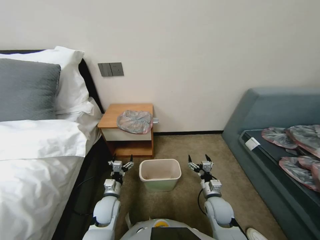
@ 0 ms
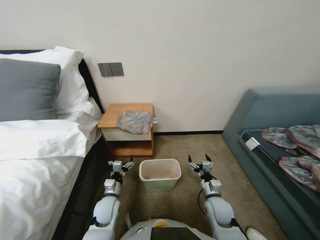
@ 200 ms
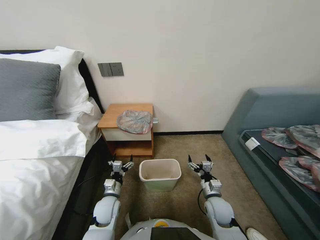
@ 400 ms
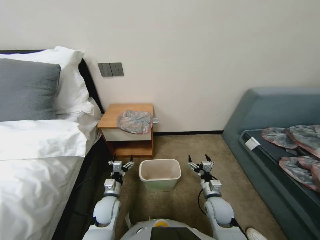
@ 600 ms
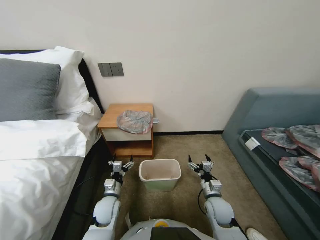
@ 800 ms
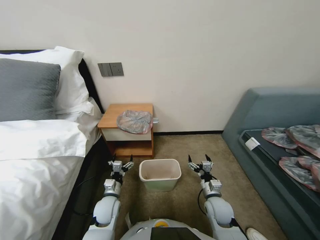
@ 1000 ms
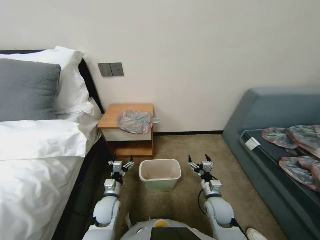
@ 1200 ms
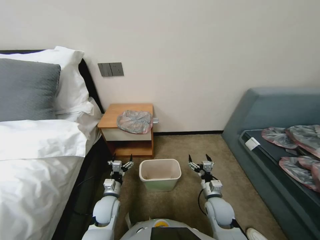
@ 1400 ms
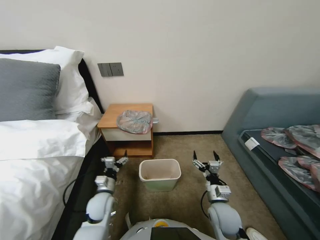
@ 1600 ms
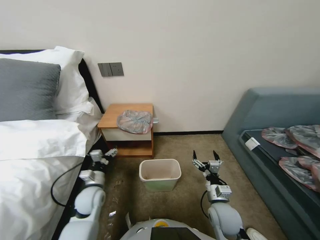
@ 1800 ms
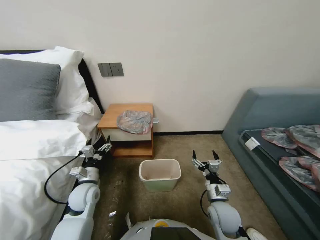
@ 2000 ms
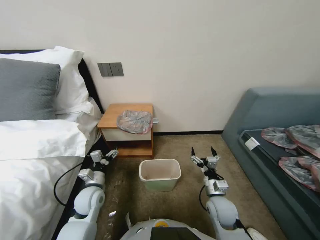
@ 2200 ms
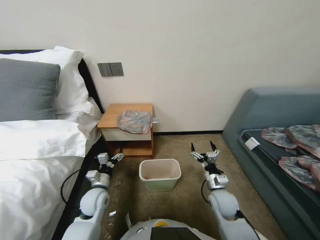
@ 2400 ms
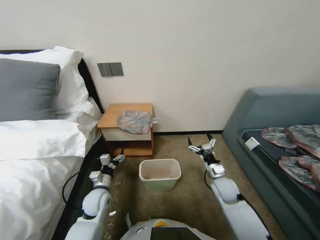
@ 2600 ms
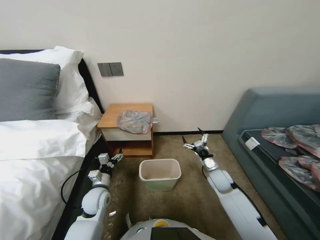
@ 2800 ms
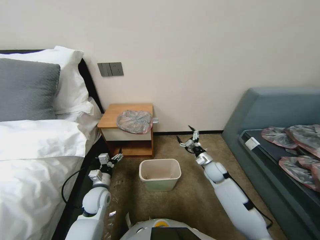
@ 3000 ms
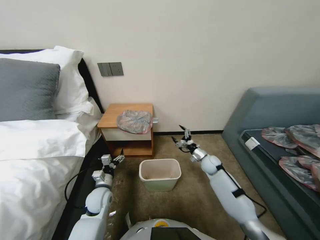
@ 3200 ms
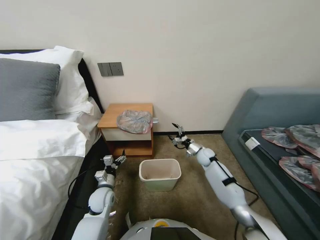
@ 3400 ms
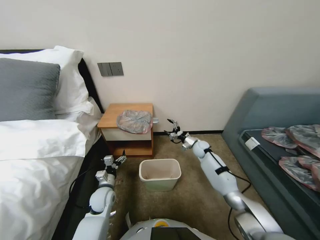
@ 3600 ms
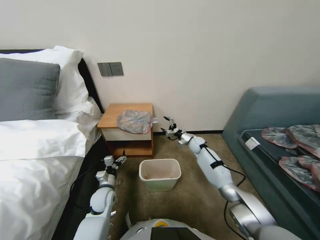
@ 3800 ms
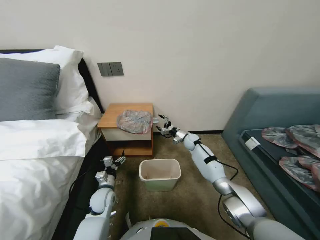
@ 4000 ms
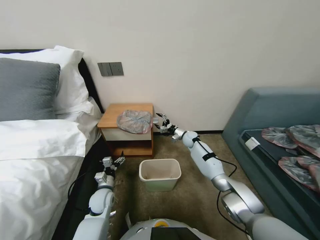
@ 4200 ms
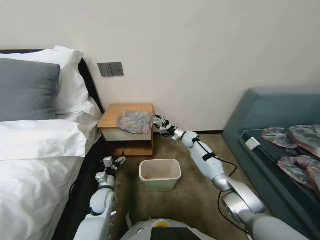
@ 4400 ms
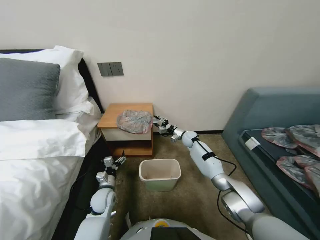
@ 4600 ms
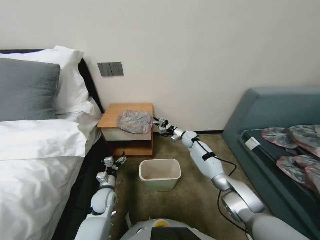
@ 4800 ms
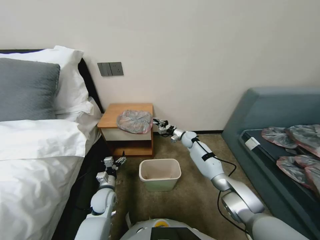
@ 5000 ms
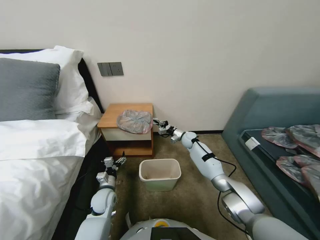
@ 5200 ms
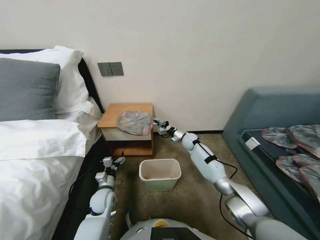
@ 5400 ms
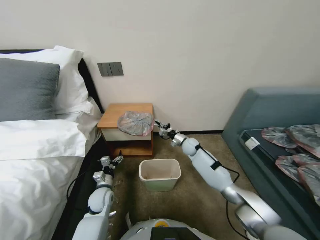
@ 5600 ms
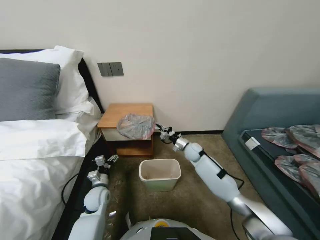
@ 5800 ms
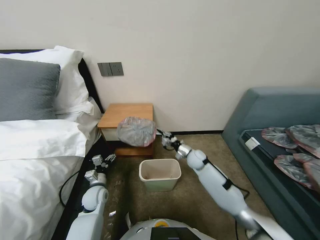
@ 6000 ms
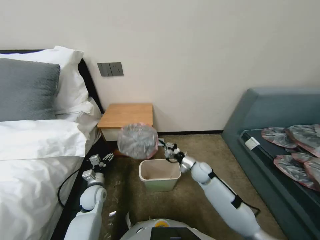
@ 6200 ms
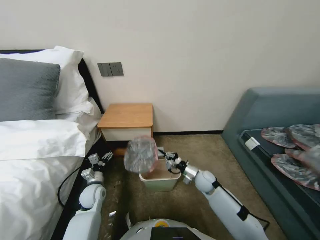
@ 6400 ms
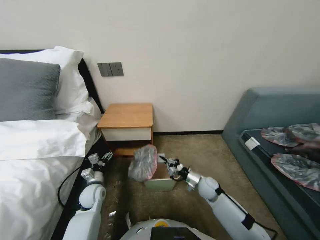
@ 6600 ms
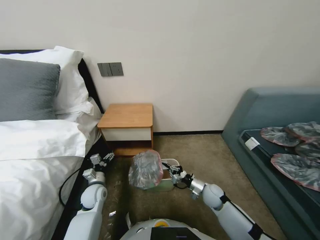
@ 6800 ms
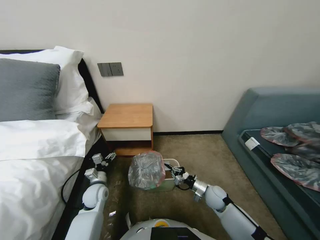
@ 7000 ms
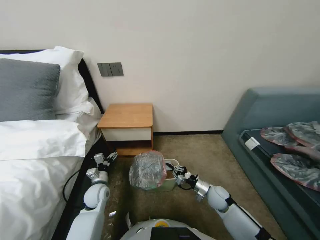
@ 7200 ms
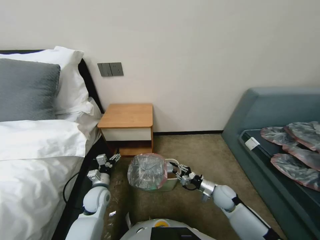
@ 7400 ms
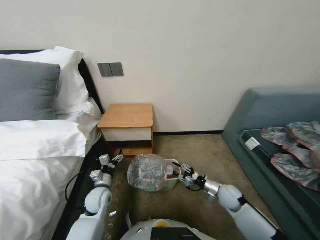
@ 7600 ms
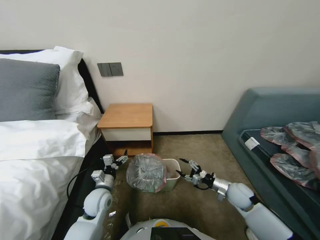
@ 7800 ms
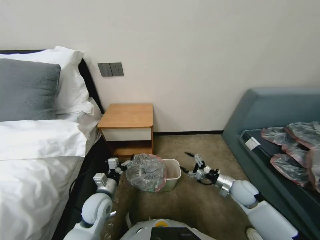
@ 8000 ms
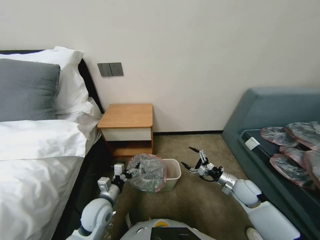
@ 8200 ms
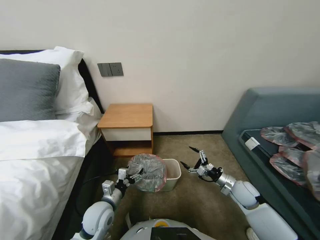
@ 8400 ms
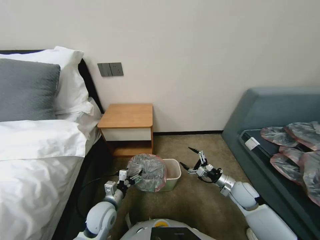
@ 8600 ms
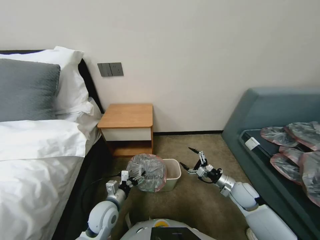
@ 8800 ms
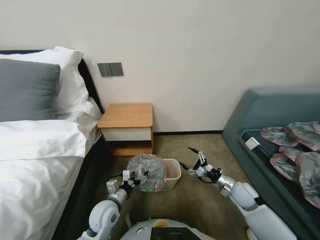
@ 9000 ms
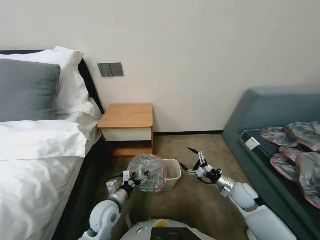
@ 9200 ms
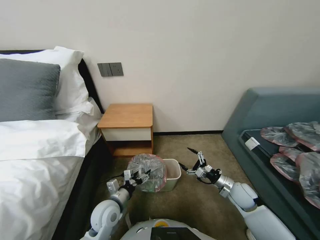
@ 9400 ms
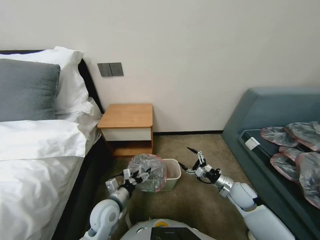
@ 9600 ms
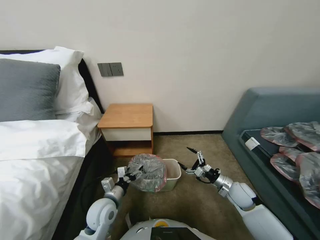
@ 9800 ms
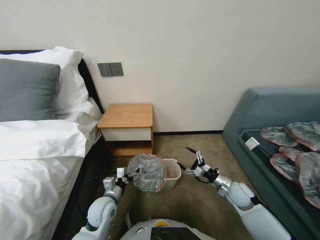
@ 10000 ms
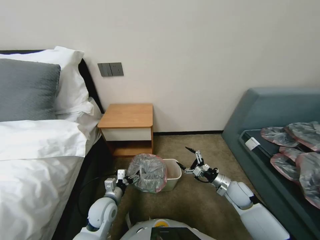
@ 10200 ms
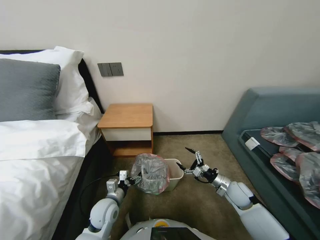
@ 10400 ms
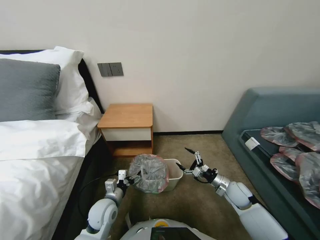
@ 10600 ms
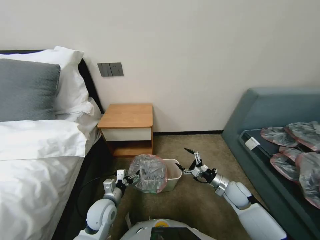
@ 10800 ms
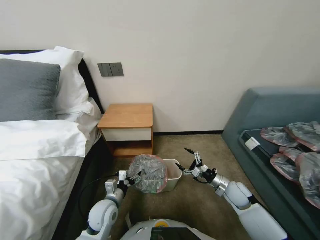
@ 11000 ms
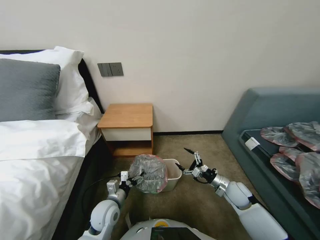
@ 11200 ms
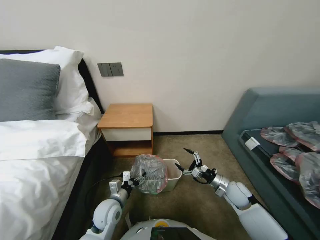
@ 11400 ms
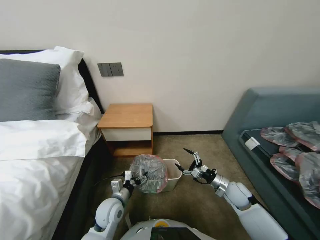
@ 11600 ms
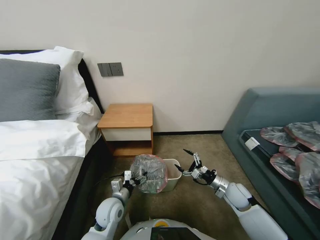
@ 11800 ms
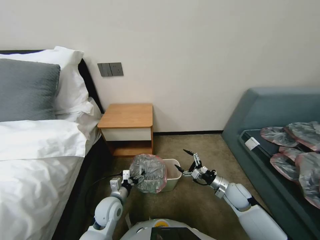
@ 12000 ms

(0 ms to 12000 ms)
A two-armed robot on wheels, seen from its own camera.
Task of the whole recording: Pick up the garbage bag from the table and place it over the trash can.
1600 ms - 3000 ms: The right gripper shifts some 15 cm forward.
3000 ms - 4400 ms: The right gripper moves forward and to the left, some 20 cm.
4400 ms - 6000 ms: The right gripper moves backward, about 10 cm, and closes its fingers.
6000 ms - 7600 ms: The right gripper shifts roughly 20 cm backward and to the right, and opens.
7600 ms - 9000 ms: The left gripper shifts some 10 cm backward and to the right; the right gripper travels upward by about 5 cm, and opens its fingers.
9000 ms - 12000 ms: The grippers make only small movements.

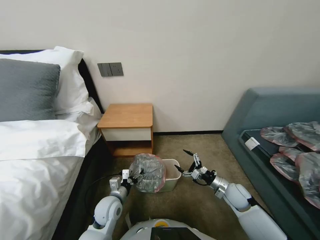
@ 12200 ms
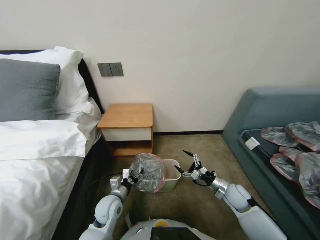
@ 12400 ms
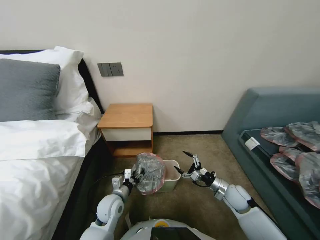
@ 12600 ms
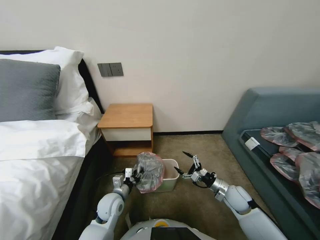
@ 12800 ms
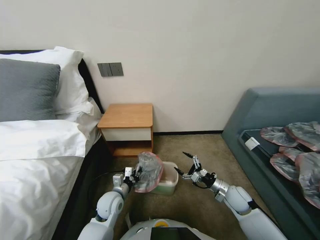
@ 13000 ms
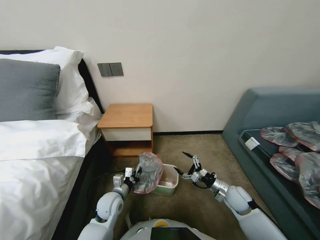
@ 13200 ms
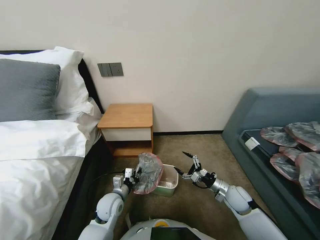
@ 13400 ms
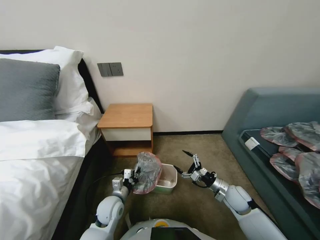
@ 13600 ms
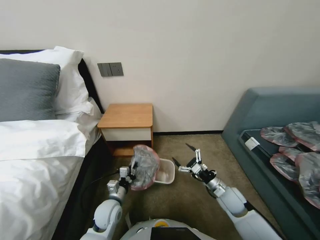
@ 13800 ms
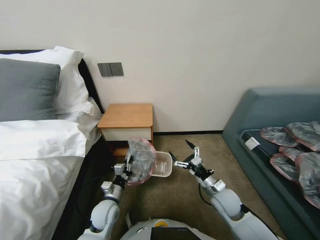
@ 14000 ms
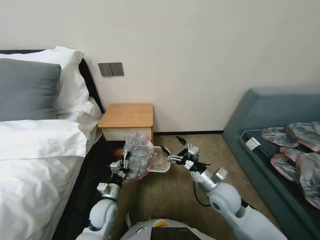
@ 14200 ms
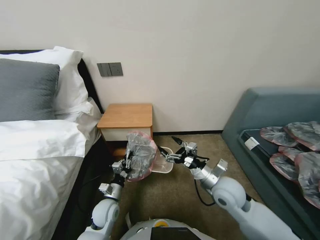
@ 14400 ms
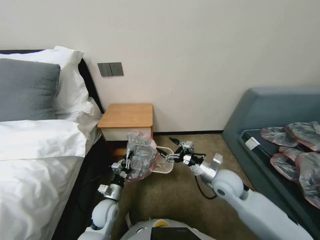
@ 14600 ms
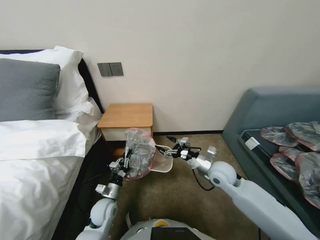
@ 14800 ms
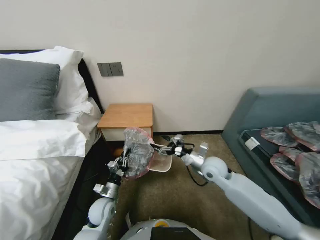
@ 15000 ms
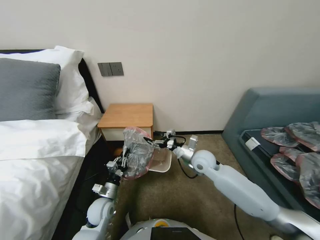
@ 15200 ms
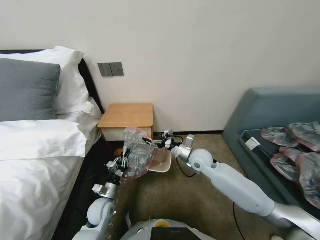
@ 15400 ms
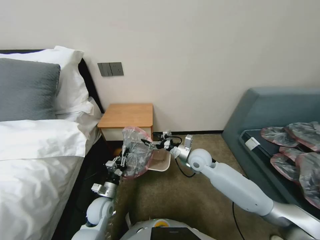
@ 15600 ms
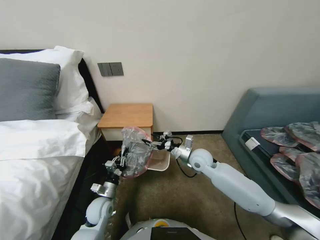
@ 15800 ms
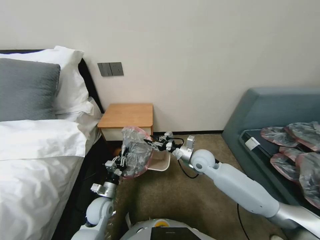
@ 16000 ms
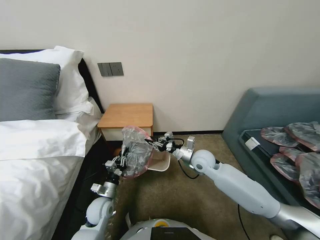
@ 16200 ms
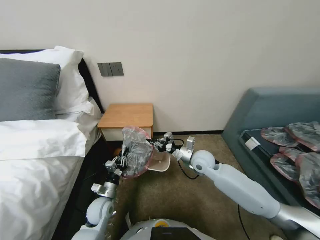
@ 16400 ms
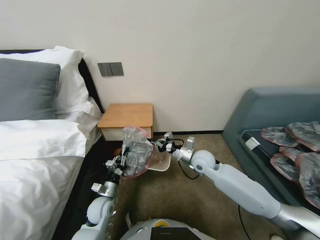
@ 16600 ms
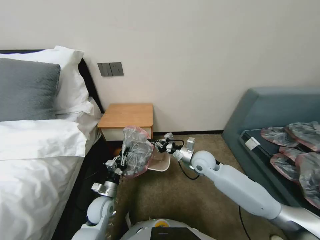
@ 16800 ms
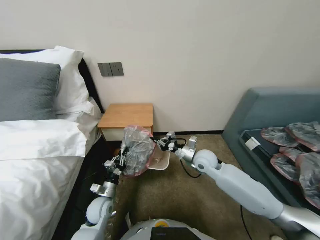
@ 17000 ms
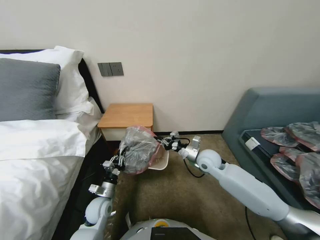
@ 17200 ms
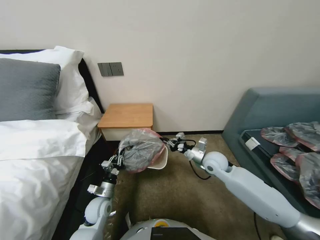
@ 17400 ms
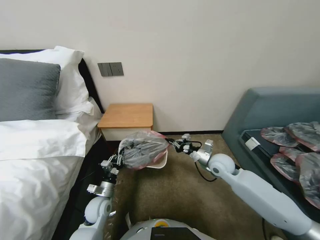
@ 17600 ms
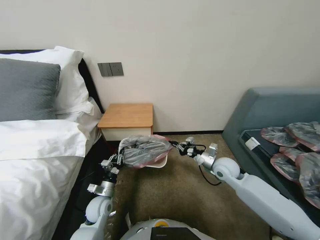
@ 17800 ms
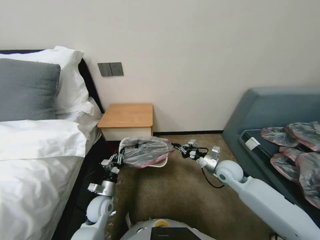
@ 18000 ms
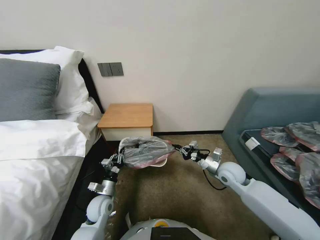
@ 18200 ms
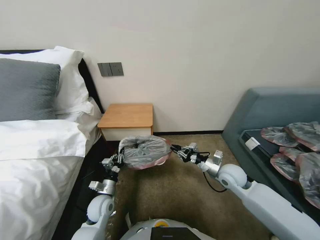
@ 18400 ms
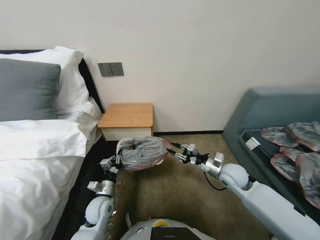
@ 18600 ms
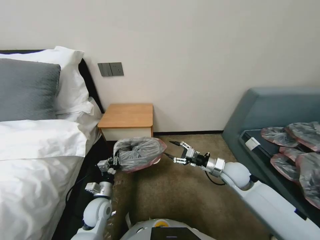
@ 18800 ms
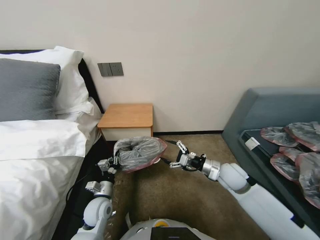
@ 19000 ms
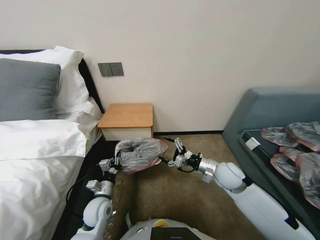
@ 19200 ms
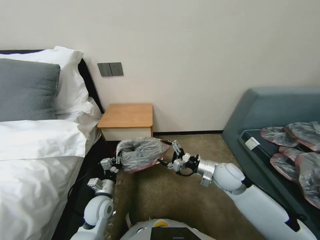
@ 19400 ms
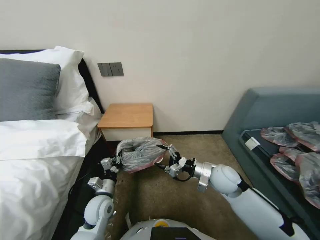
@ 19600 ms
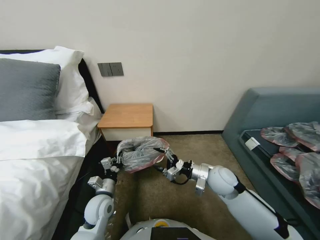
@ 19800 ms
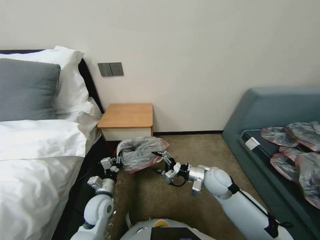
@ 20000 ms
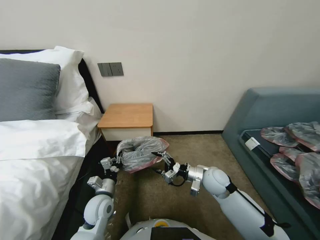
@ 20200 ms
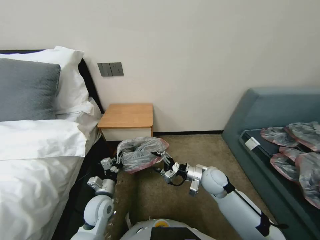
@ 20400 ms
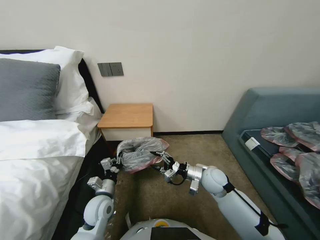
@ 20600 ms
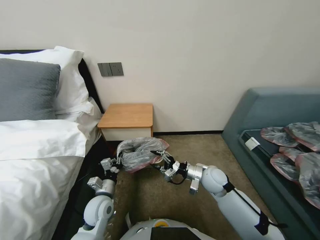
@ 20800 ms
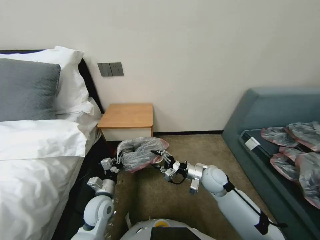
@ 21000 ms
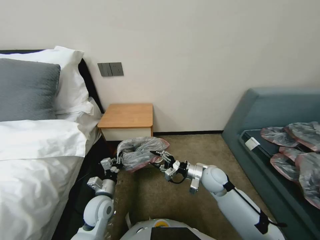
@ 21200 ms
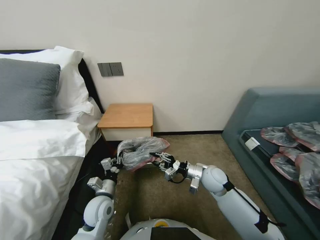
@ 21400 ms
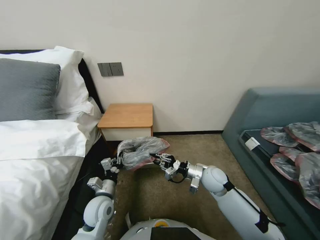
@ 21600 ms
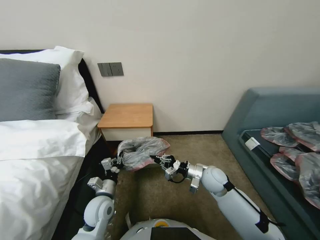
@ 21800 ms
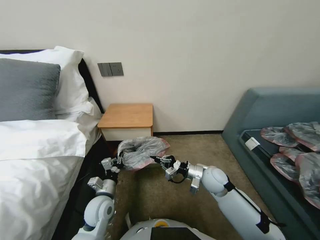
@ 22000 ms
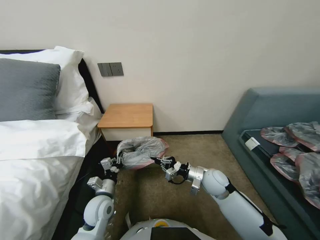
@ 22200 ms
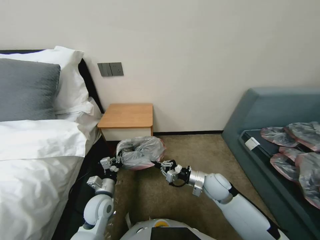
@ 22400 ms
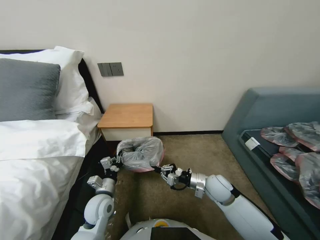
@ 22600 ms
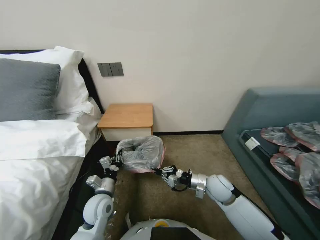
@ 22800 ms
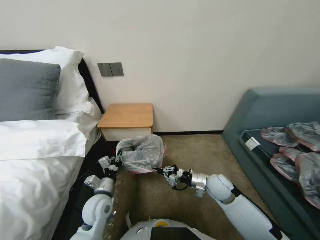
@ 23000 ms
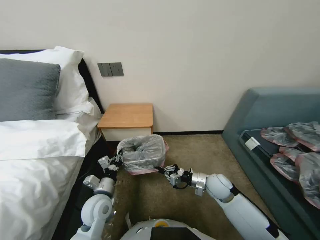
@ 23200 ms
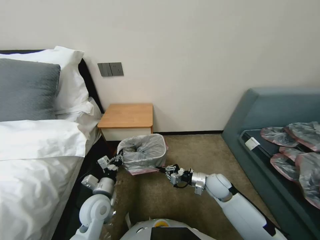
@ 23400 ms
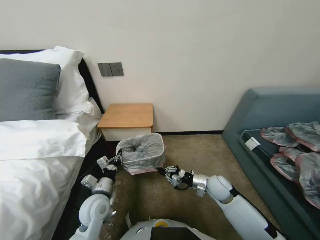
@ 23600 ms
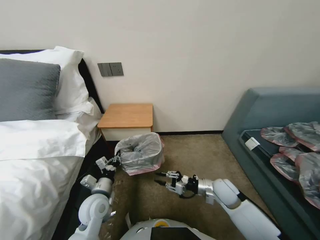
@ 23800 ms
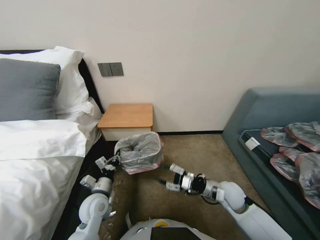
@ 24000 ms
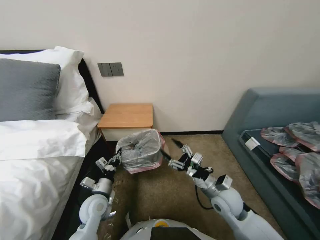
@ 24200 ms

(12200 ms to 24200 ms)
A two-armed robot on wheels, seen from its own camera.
Task of the whole recording: Pick up the garbage bag from the table and place it over the trash can.
12200 ms - 13800 ms: The left gripper closes.
13800 ms - 15200 ms: The right gripper shifts approximately 20 cm to the left, upward and forward.
15200 ms - 16600 ms: The right gripper closes.
16600 ms - 18200 ms: The right gripper moves to the right, some 10 cm.
18200 ms - 19800 ms: The right gripper is displaced to the left by some 5 cm, and opens its fingers; the left gripper moves about 5 cm.
19800 ms - 21200 ms: The grippers move only a little.
21200 ms - 22600 ms: The right gripper closes its fingers.
22600 ms - 24200 ms: The right gripper opens up.
